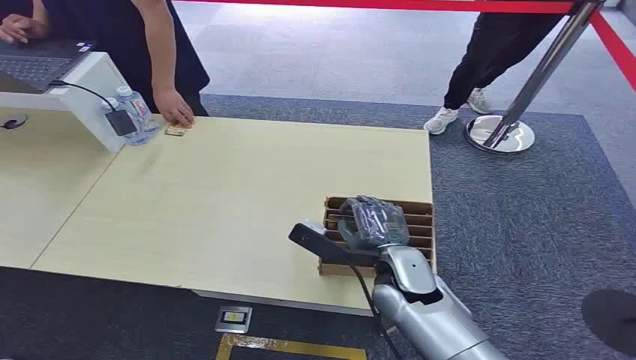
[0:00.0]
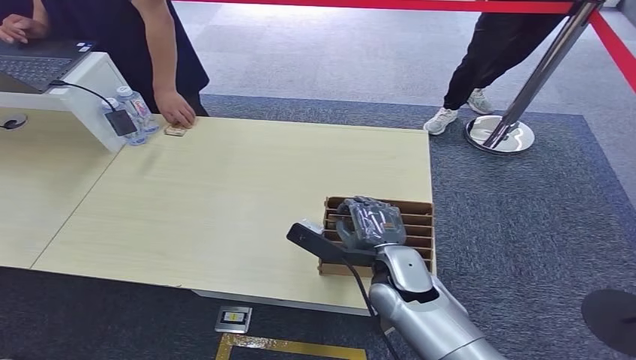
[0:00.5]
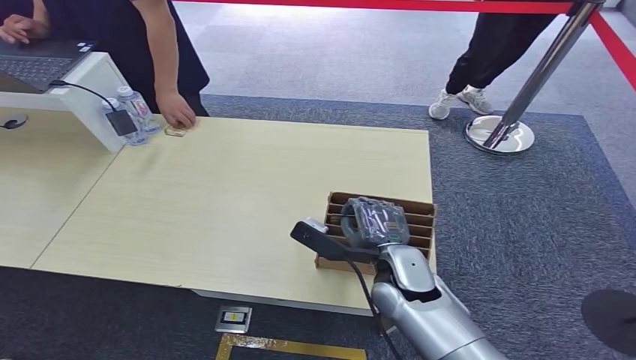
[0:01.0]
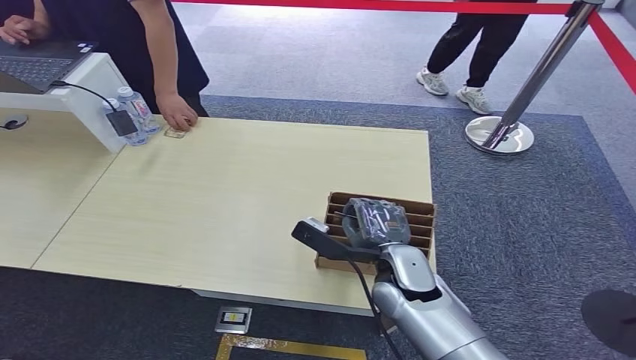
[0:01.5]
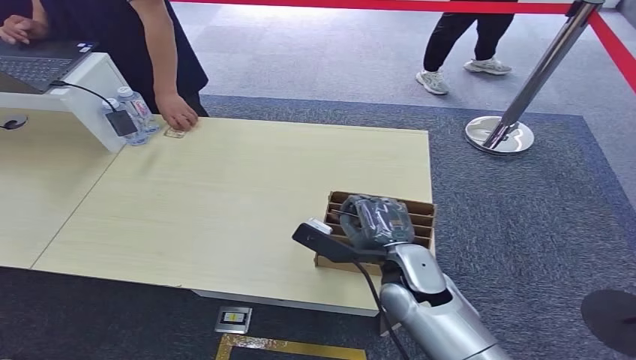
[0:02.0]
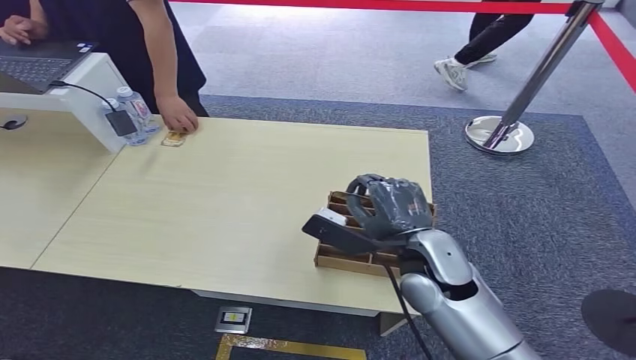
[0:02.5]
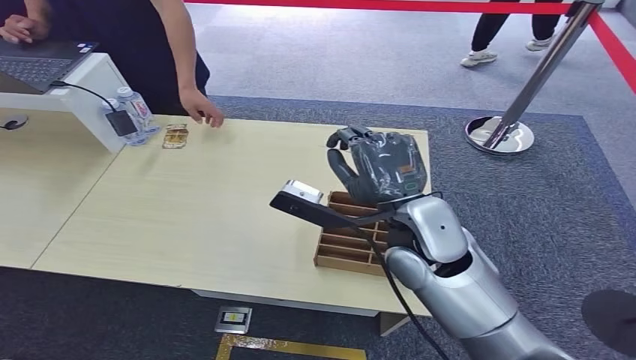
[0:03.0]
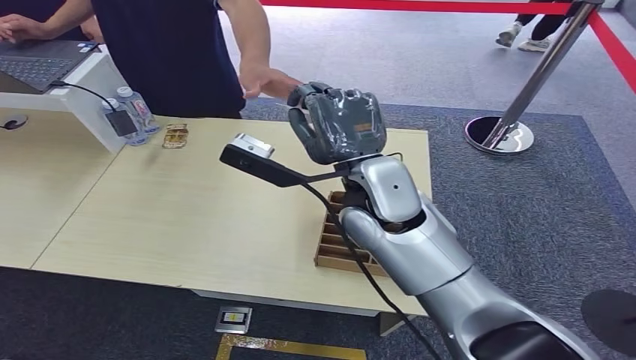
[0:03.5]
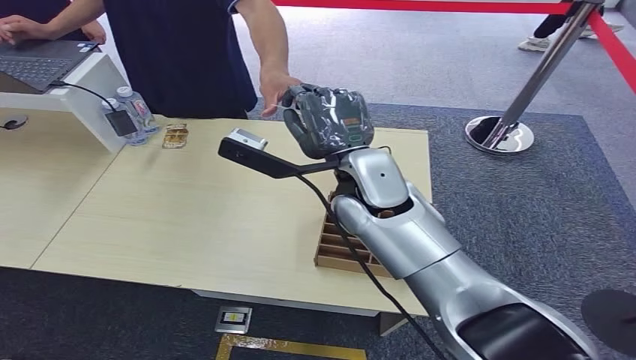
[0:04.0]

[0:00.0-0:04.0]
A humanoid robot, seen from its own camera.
Step, 0:00.0 to 0:03.0: Pick up the room card from the card holder.
Step, 0:03.5 to 0:04.0: Hand the room card to the target.

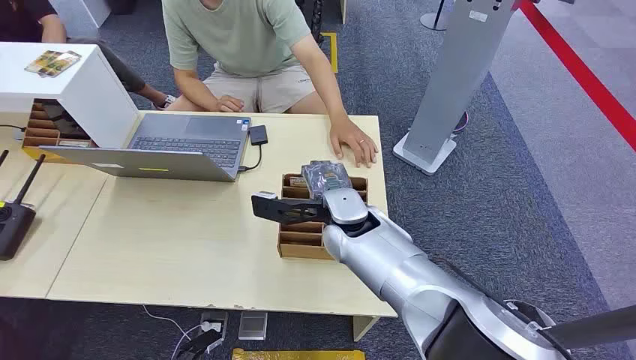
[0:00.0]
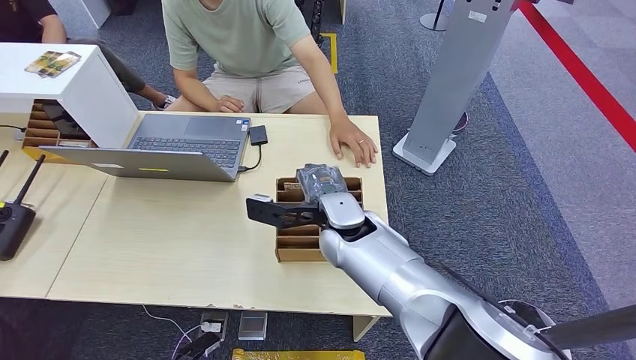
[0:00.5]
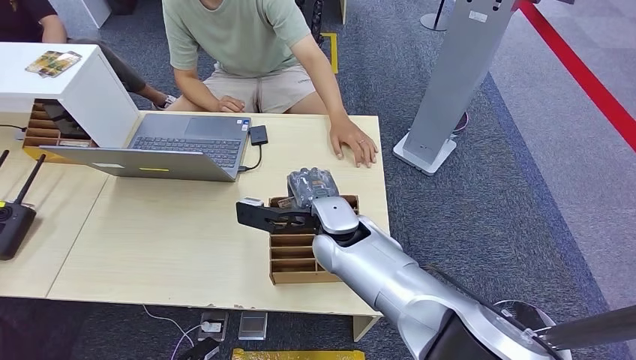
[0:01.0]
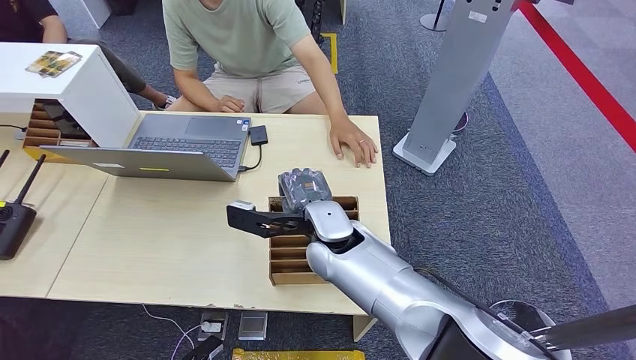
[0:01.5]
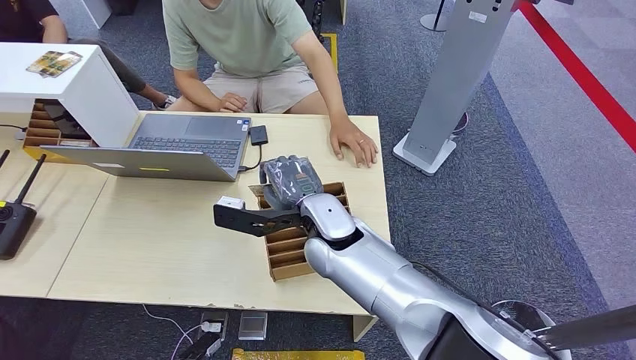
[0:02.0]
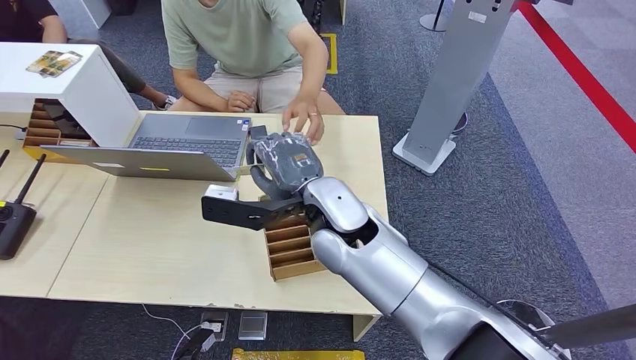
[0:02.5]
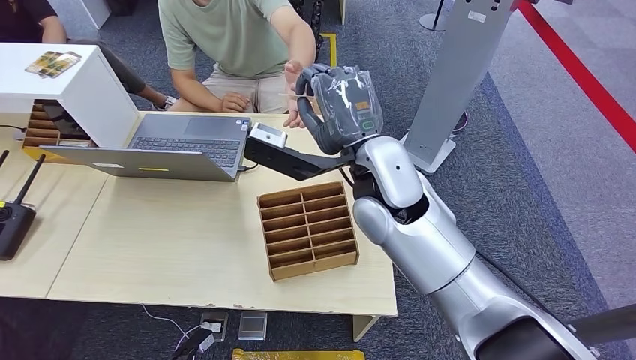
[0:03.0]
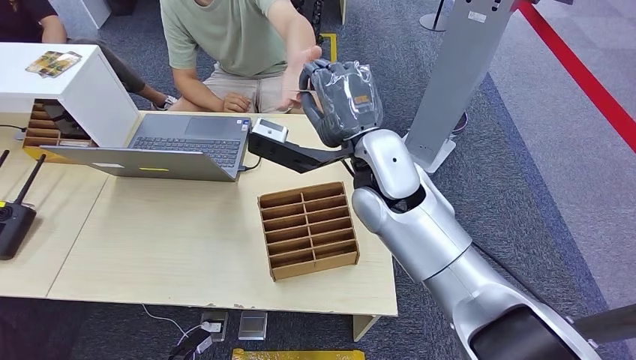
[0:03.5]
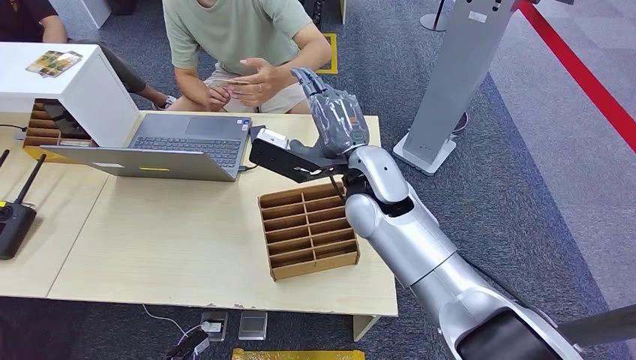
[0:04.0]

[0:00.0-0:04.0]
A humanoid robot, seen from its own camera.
Step, 0:00.0 to 0:02.0: Pick up the room card from the card holder.
Step, 0:03.5 to 0:04.0: Hand the room card to the target.
0:02.0 to 0:04.0: The right hand is displaced upward and to the right by about 10 cm.
